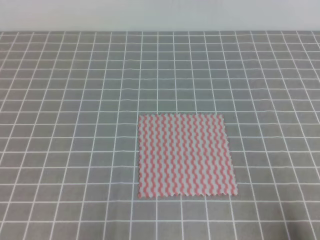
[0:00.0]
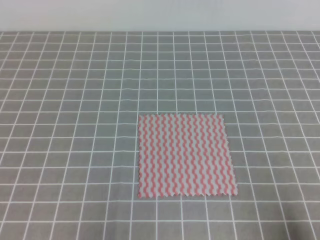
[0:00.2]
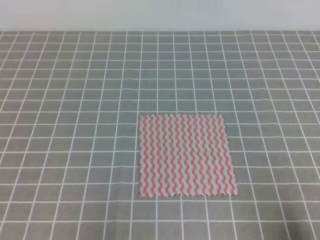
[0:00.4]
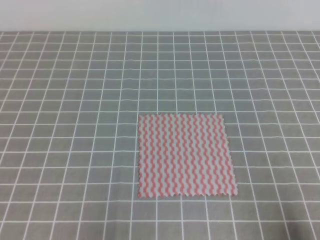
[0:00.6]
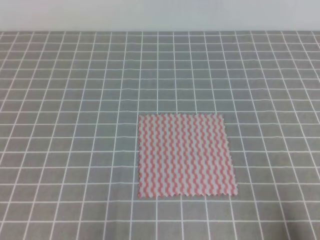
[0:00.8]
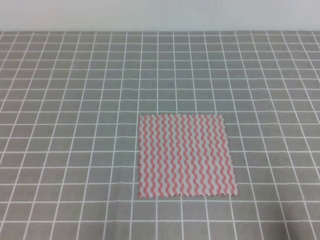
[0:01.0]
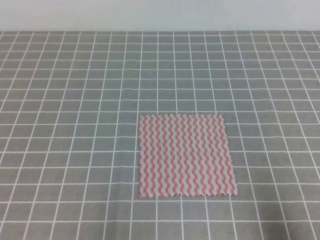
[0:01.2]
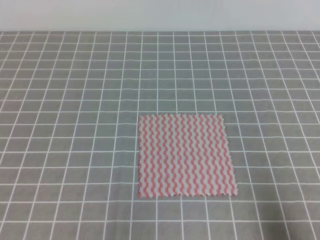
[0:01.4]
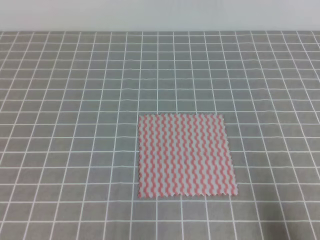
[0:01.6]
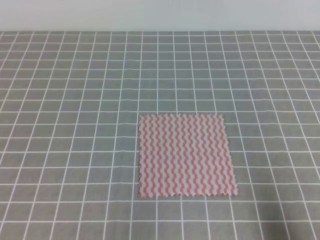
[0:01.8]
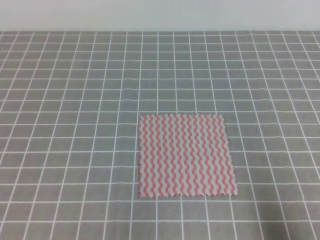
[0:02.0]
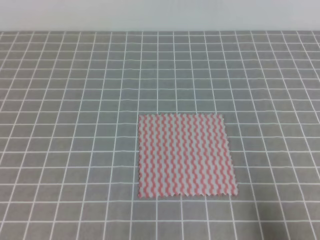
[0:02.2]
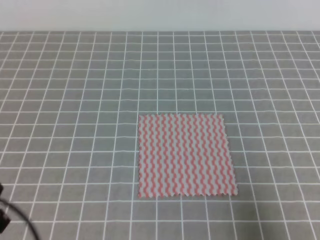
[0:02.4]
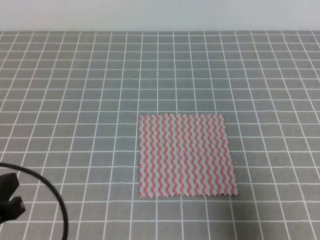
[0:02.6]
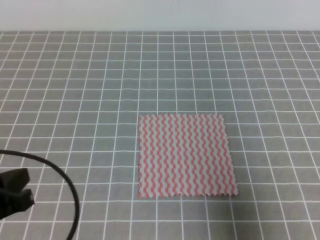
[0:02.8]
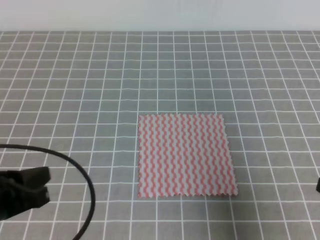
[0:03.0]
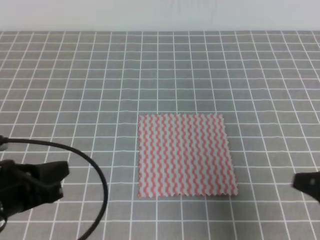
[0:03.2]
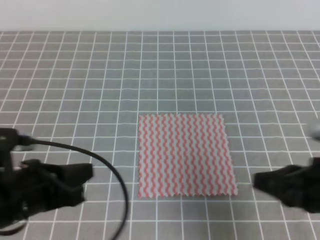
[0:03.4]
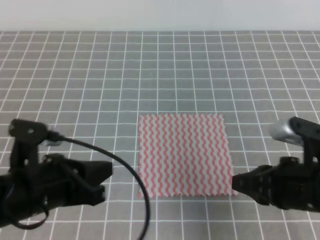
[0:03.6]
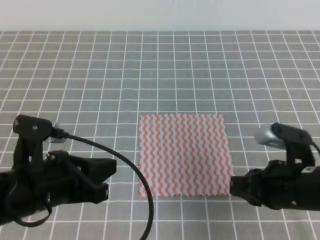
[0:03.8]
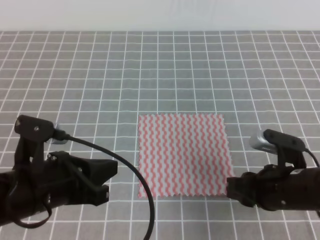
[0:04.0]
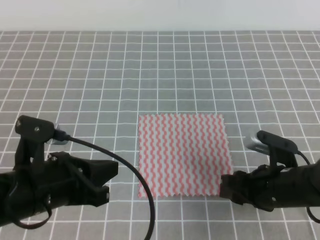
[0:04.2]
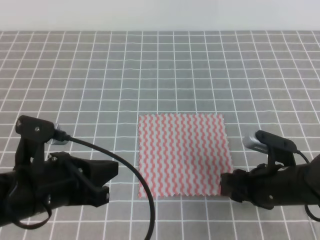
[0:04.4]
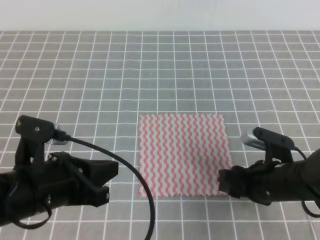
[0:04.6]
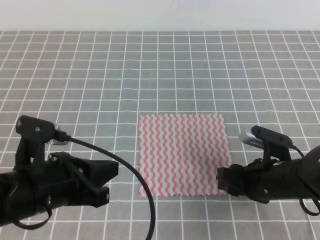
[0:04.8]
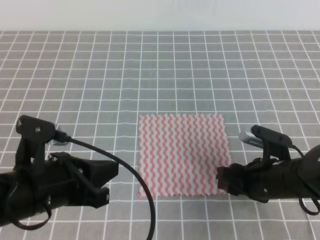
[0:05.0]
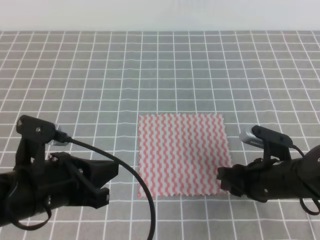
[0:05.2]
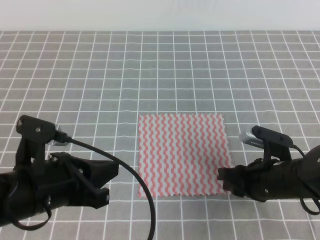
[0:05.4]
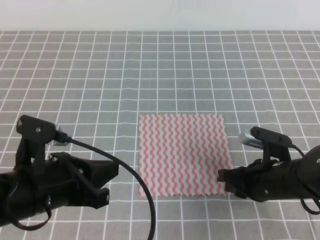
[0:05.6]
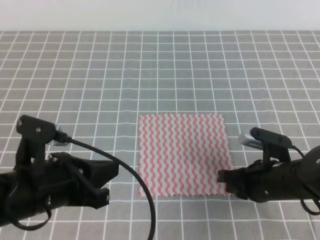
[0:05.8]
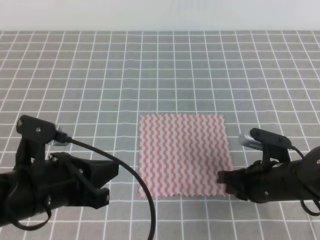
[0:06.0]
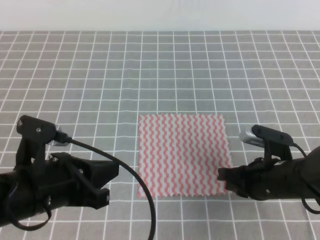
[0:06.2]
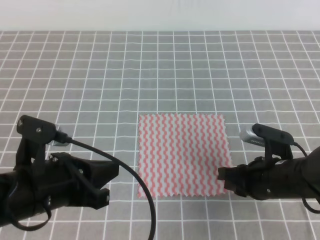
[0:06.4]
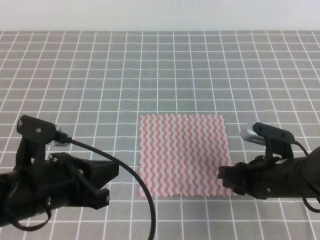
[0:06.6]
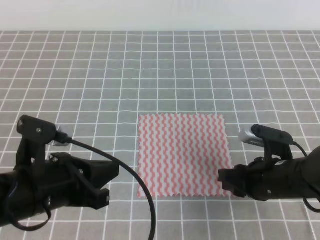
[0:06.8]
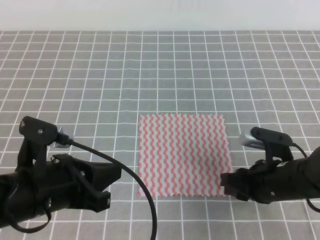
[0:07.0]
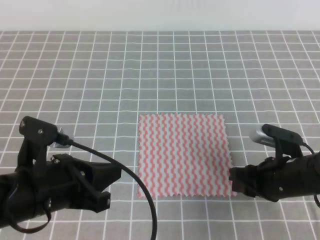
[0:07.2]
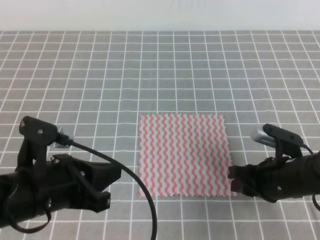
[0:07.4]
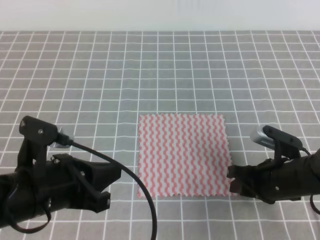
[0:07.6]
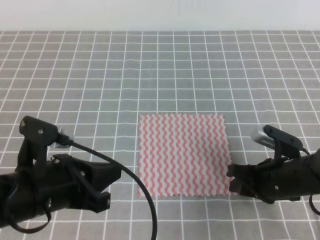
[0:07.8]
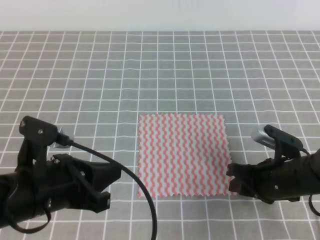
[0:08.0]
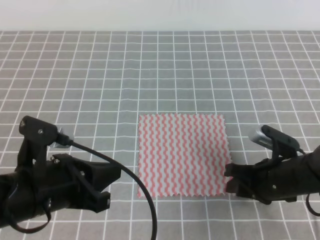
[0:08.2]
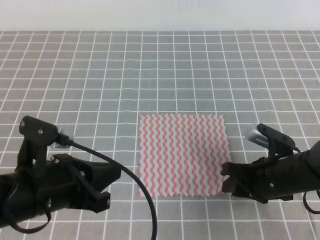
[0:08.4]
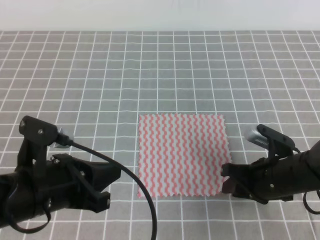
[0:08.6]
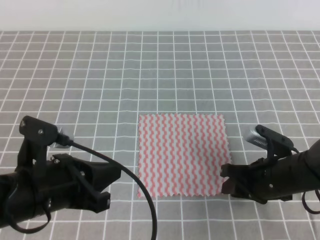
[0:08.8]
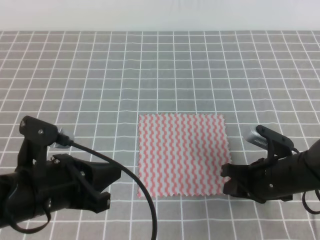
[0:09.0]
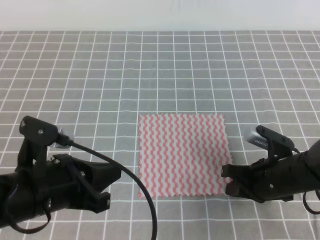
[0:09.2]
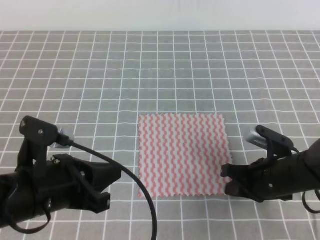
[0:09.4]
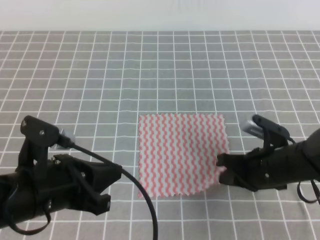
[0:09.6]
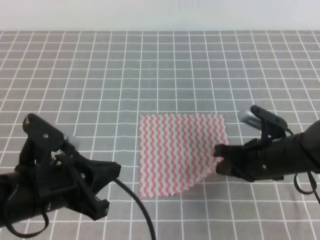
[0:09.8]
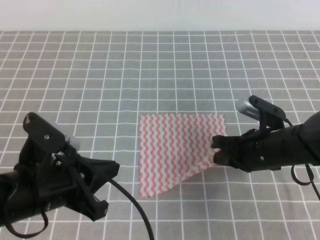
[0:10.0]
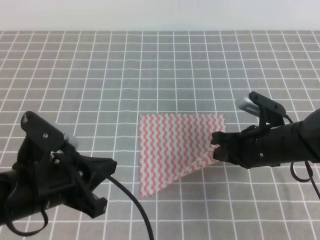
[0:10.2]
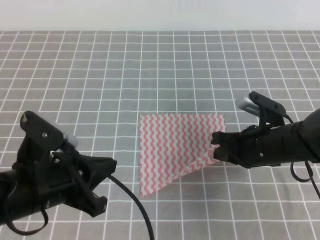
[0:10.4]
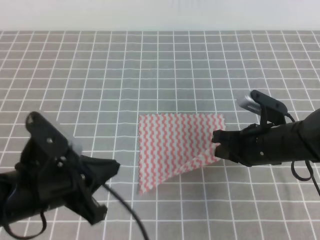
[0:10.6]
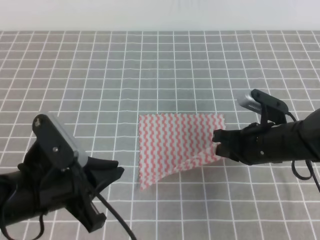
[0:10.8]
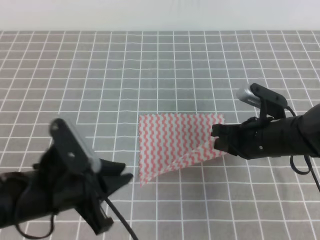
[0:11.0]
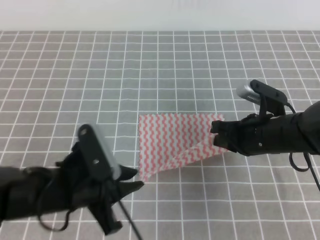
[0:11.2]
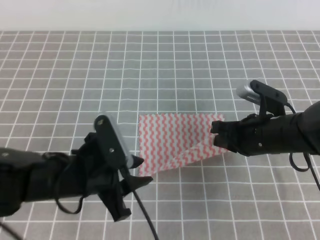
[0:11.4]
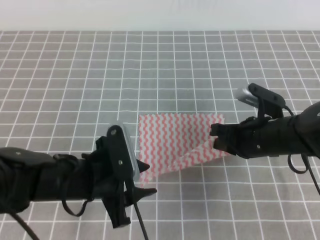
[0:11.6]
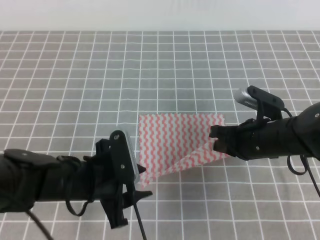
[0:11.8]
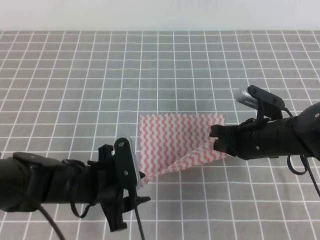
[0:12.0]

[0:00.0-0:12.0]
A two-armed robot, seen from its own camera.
0:01.6 to 0:03.0: The left gripper heads forward and upward, covering some 10 cm. The right gripper shifts roughly 10 cm forward.
0:03.0 to 0:04.4: The left gripper is displaced to the right by approximately 5 cm, while the right gripper moves to the left, forward and downward, some 15 cm, and opens up.
0:04.4 to 0:06.0: The right gripper closes up.
0:06.0 to 0:07.6: The right gripper opens.
0:07.6 to 0:09.0: Both grippers stay about where they are.
0:09.0 to 0:10.4: The right gripper changes place by some 5 cm.
0:10.4 to 0:12.0: The left gripper moves downward, forward and to the right, some 10 cm, and opens up.

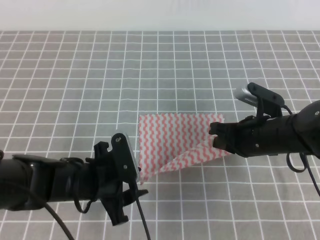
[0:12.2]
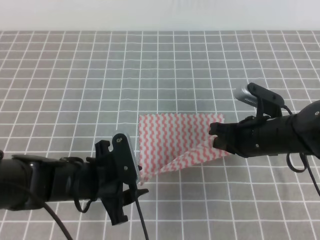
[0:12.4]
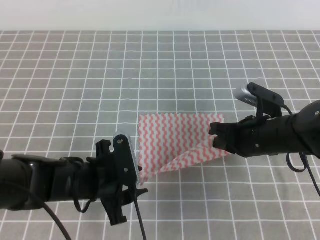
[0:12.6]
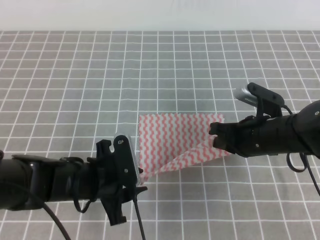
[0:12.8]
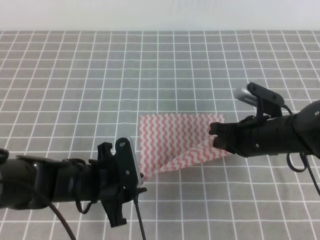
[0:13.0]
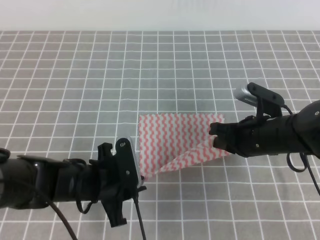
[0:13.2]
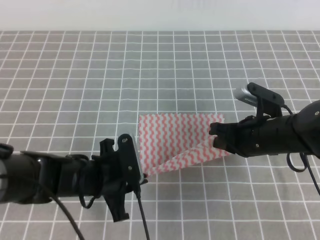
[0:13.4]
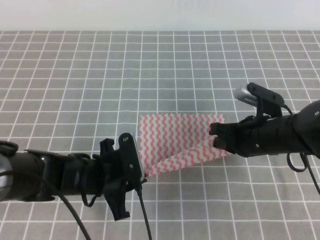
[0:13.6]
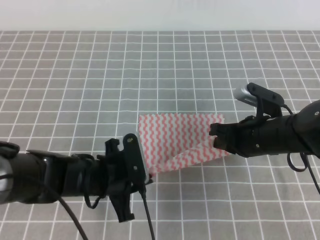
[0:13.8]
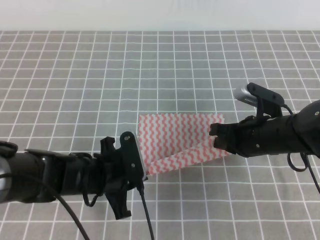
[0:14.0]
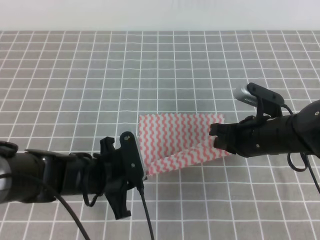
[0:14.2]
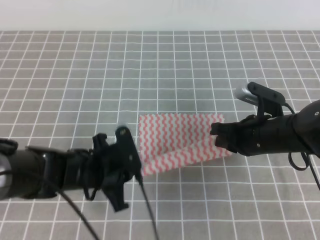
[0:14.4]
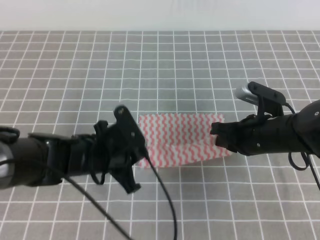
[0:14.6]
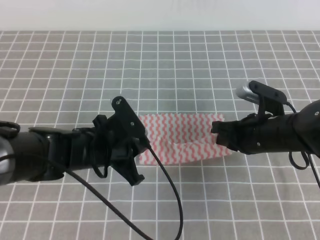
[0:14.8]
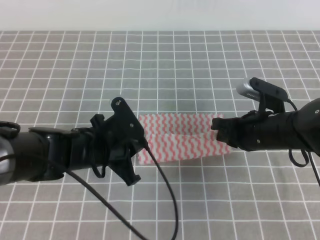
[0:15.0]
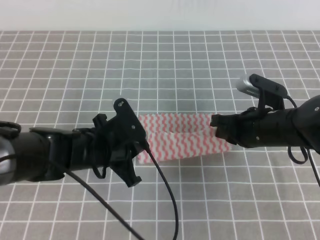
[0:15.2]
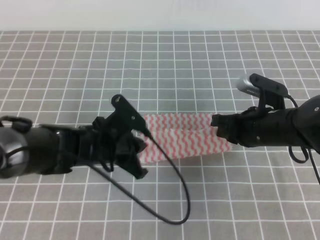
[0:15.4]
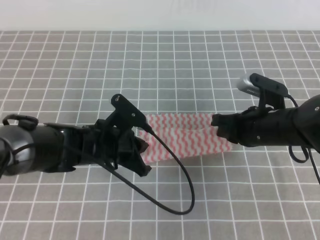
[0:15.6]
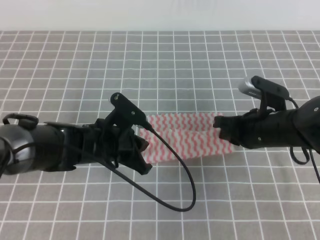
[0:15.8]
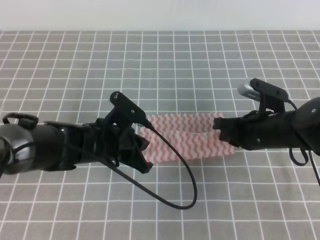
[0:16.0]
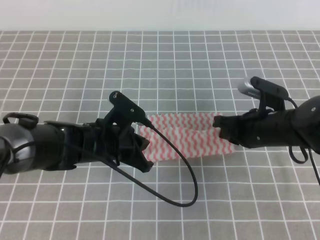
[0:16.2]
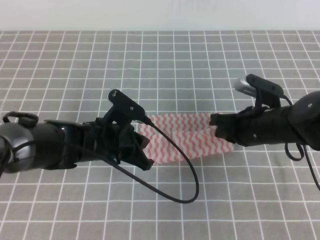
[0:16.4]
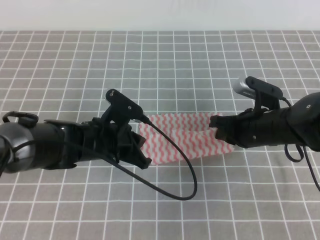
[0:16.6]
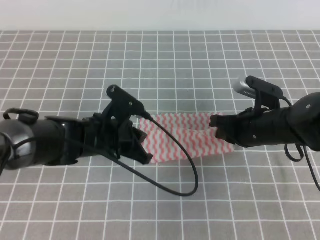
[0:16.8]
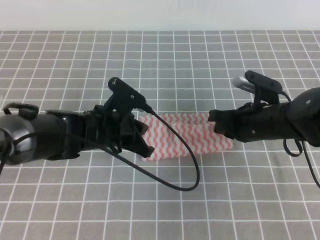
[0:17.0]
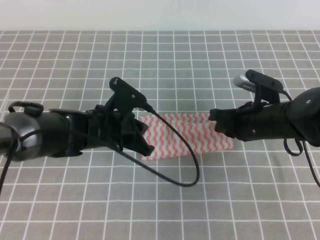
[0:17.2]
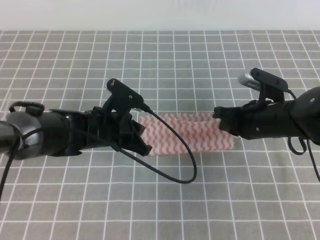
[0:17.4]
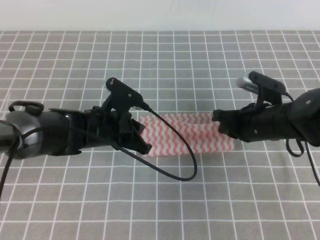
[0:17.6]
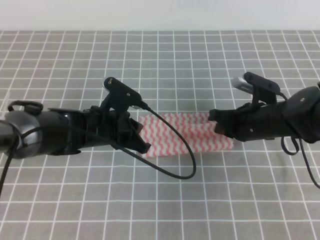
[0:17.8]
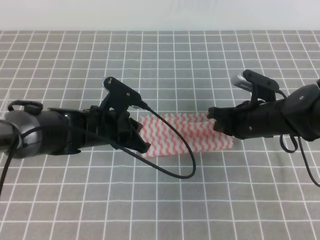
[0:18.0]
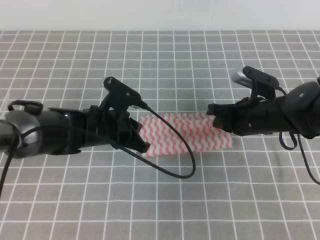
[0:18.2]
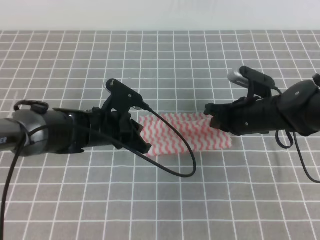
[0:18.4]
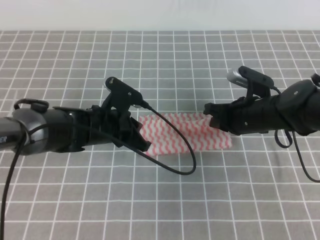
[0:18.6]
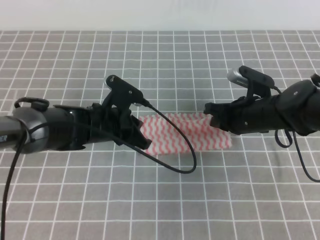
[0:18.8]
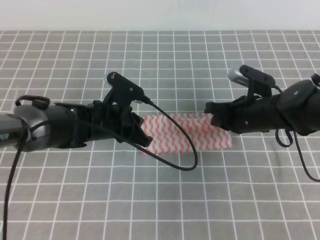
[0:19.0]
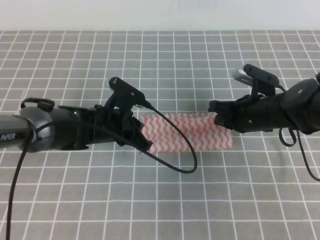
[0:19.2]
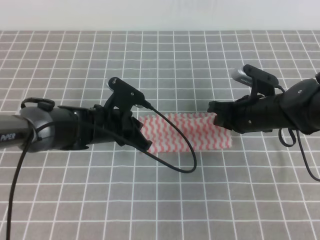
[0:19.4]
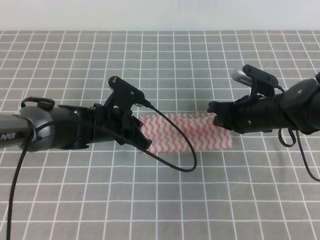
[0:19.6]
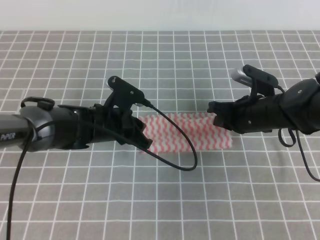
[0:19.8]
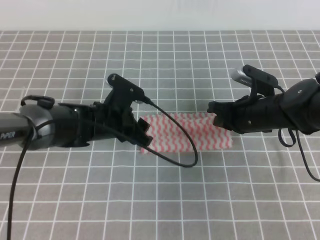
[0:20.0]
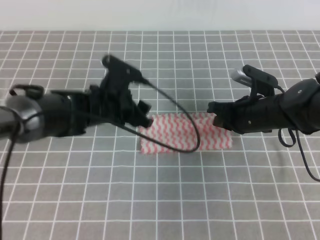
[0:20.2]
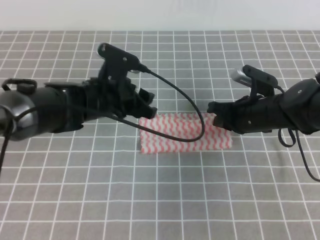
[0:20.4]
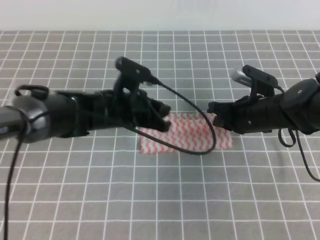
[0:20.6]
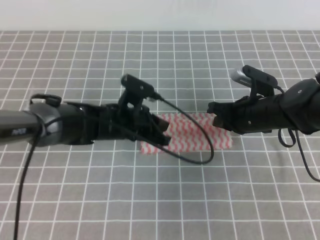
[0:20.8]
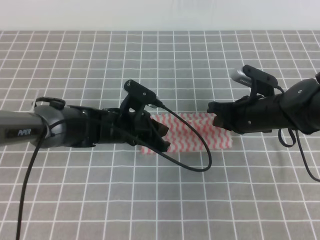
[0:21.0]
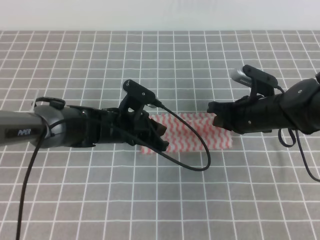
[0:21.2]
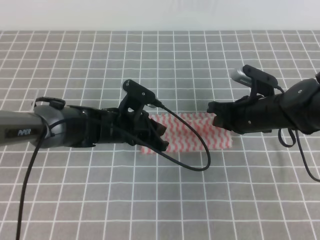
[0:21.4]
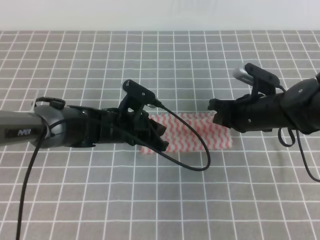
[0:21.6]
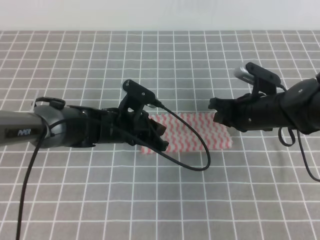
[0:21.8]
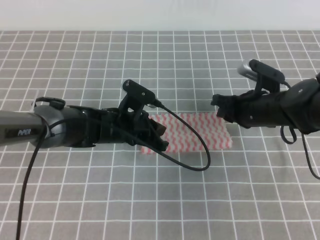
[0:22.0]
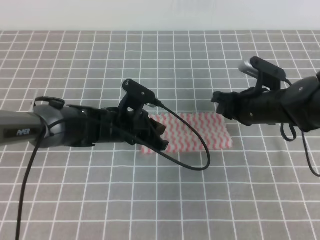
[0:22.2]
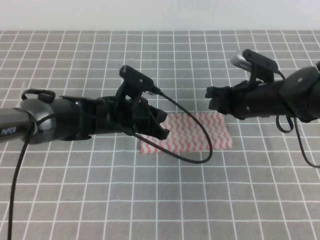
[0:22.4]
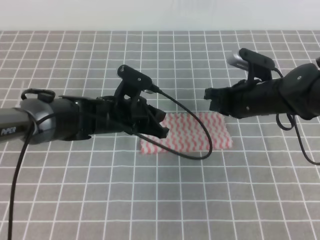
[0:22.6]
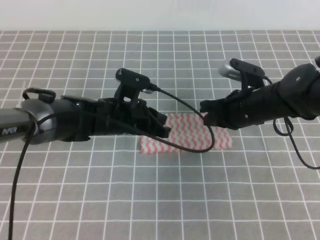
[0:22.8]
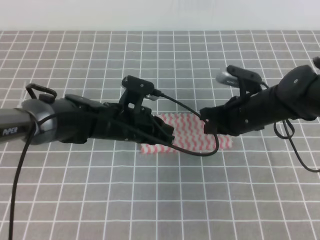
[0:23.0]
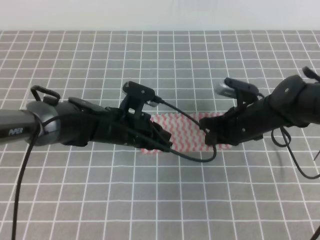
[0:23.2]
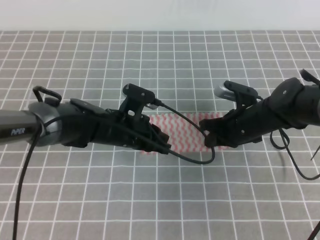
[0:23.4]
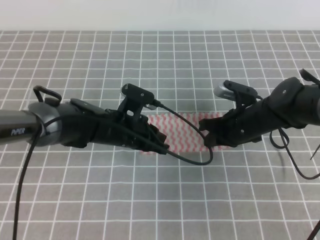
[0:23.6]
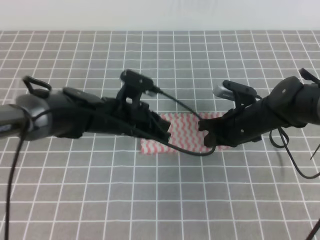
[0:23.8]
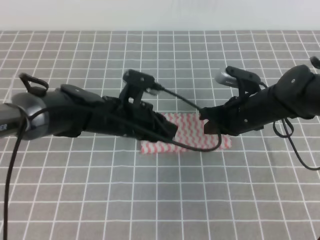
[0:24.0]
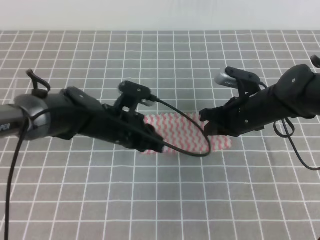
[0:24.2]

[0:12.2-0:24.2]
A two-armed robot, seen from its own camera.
Step, 0:13.4 to 0:16.0: Tidy up the towels.
Step, 0:16.2 to 0:20.8: Fold the towel from right to left with the right gripper.
Step, 0:21.0 to 0:23.8: Tidy up the towels.
0:12.2 to 0:13.8: The left gripper closes up.
0:15.2 to 0:18.2: There are only small adjustments of the grippers.
0:18.2 to 0:19.8: The left gripper opens.
0:19.8 to 0:21.2: The left gripper closes.
0:21.2 to 0:24.2: The grippers make only small movements.
